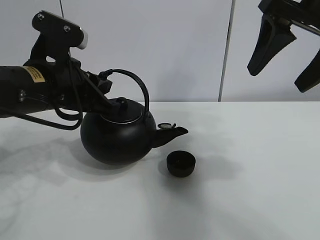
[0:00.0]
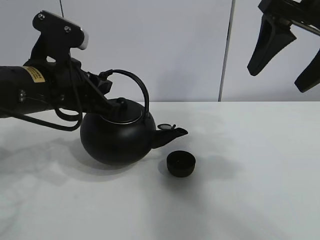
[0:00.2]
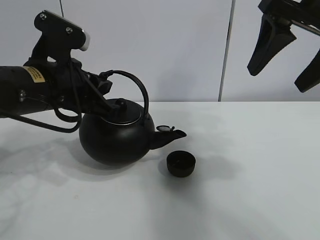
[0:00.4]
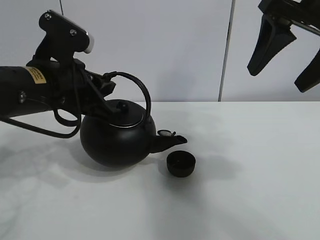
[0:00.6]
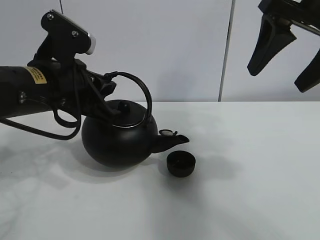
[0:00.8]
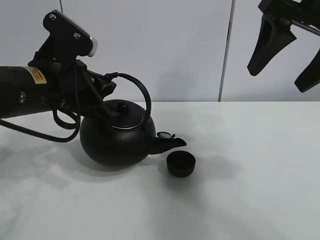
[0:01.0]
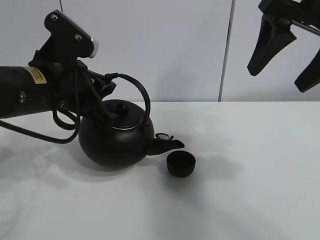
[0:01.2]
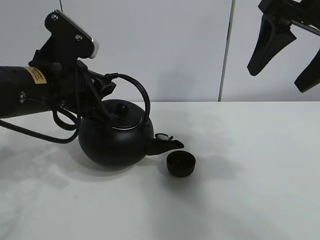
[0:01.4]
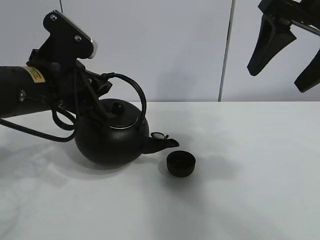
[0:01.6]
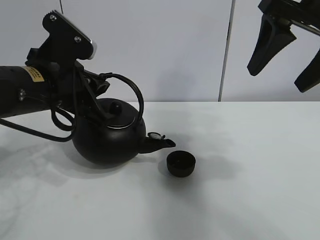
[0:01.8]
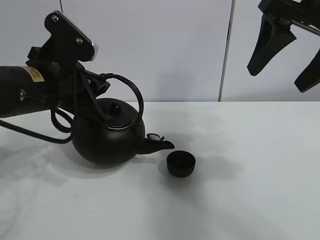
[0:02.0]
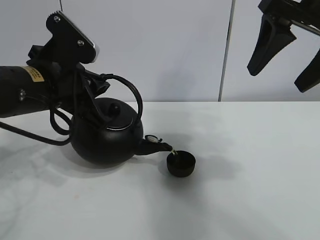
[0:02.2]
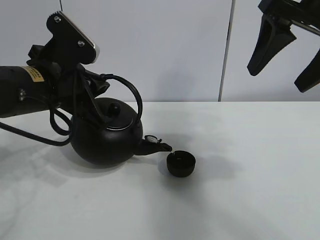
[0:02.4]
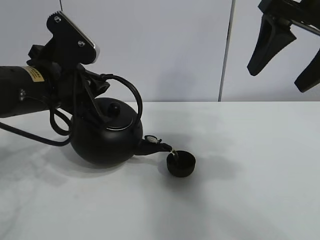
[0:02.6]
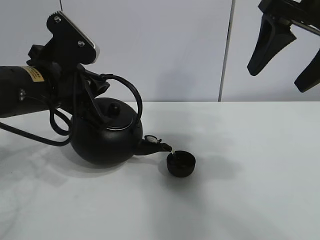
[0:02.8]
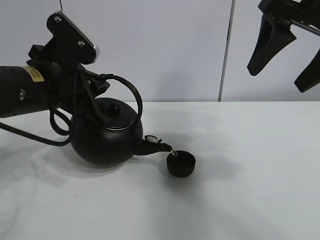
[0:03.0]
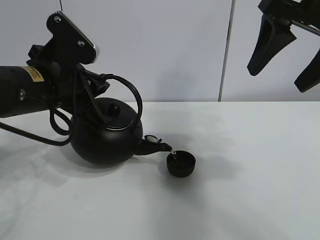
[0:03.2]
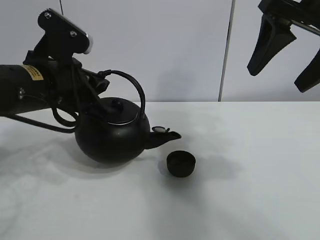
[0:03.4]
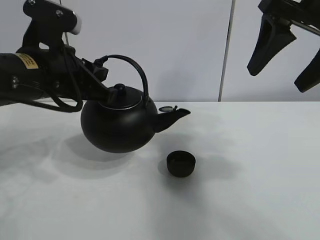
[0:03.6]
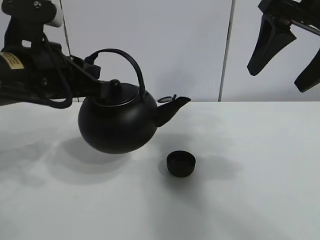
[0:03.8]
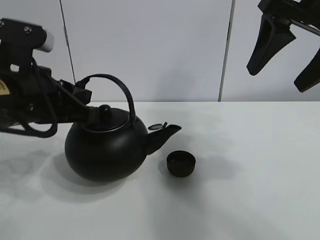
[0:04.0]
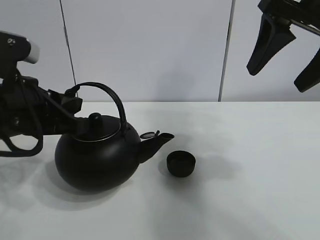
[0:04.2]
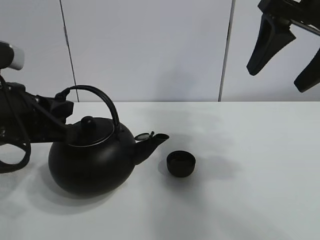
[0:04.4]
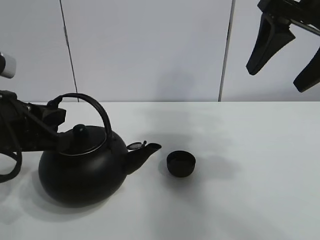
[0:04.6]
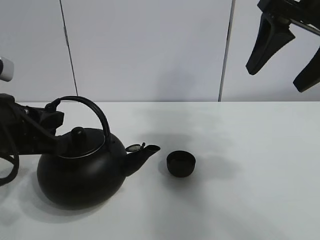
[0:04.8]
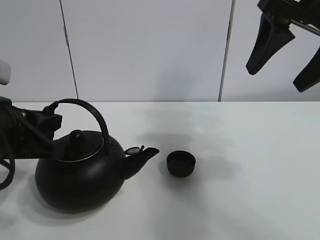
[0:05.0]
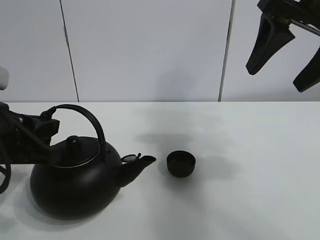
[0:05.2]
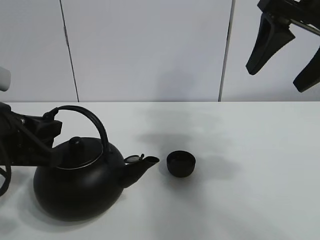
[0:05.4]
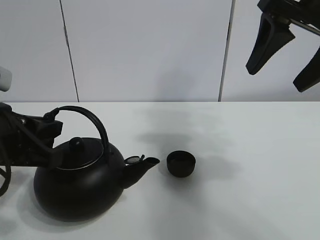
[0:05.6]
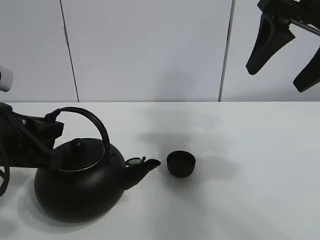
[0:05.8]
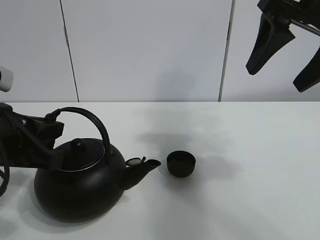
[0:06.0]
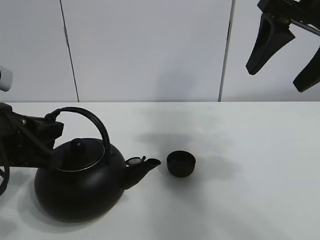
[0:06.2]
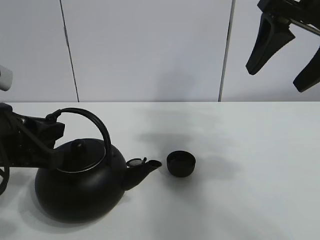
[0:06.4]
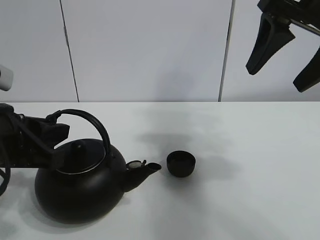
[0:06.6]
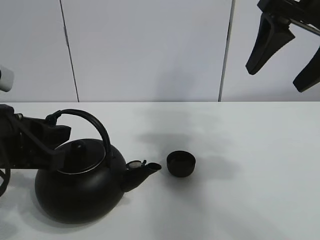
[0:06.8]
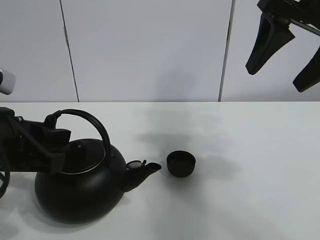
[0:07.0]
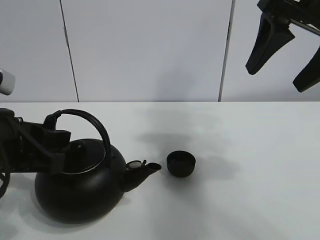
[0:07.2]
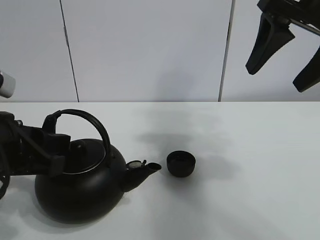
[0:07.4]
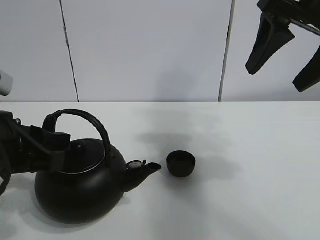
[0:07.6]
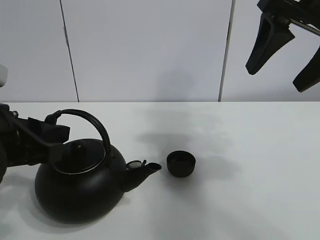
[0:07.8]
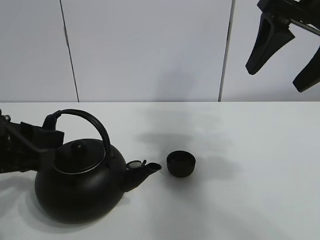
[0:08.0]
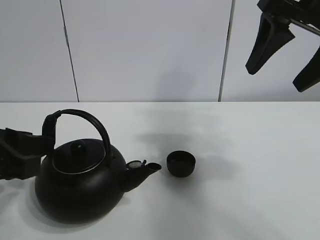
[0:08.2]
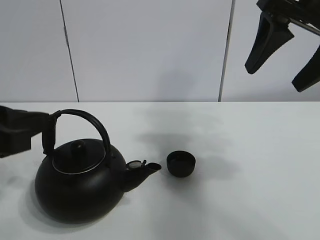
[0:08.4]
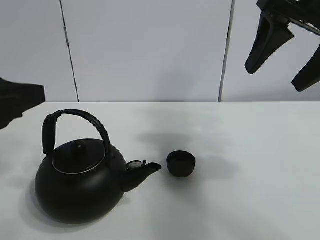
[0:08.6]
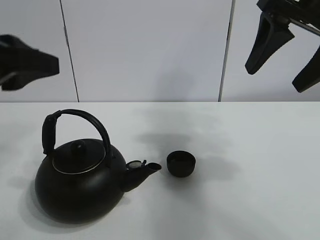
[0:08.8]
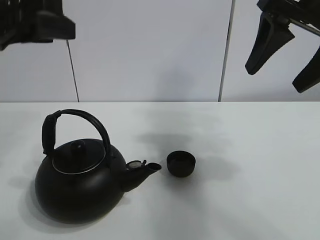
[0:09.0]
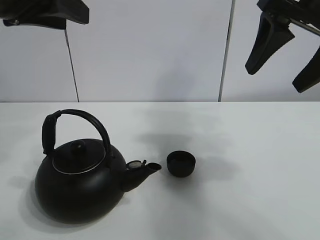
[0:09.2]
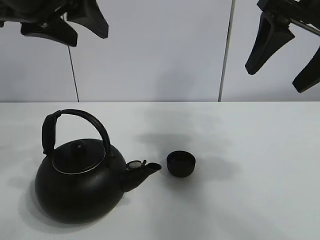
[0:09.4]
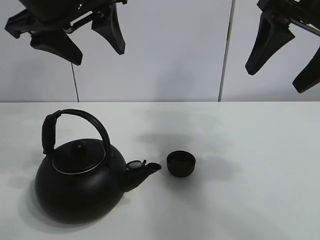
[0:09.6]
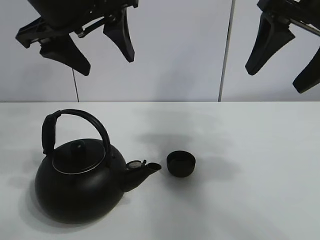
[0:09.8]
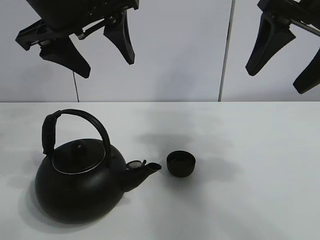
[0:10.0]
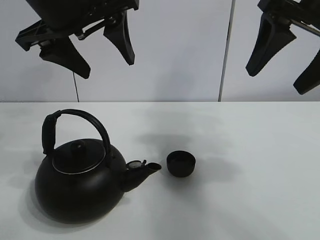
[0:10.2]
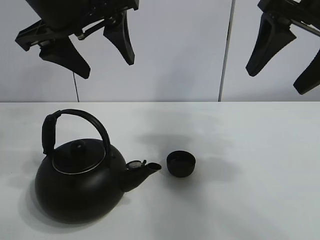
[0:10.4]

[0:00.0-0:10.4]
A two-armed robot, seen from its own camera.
Task of the whole recording: pour tea into the teacup.
Step, 0:00.0 to 0:03.2: Pour tea into the teacup with the left gripper.
0:00.0 to 0:03.0: The grippers move only a little.
0:03.0 to 0:04.4: The left gripper shifts approximately 5 cm backward.
0:04.4 to 0:06.0: The grippers move only a little.
0:06.0 to 0:07.4: The left gripper opens its fingers.
0:07.4 to 0:09.0: The left gripper goes about 15 cm upward.
0:09.0 to 0:10.4: The left gripper goes approximately 10 cm forward and to the right, and opens.

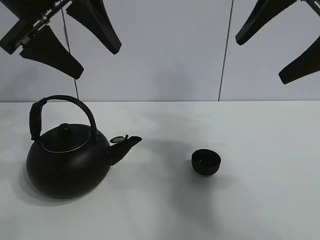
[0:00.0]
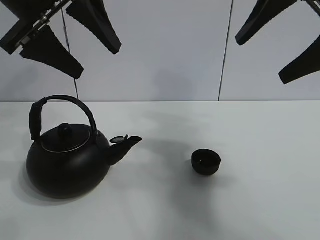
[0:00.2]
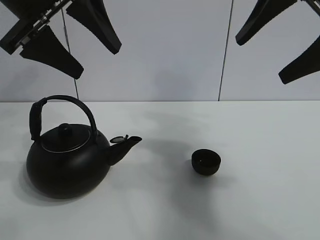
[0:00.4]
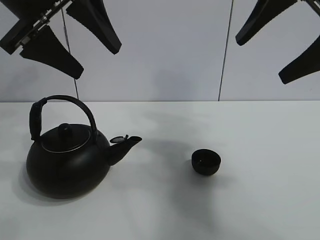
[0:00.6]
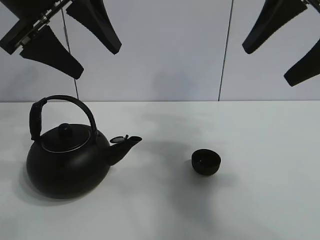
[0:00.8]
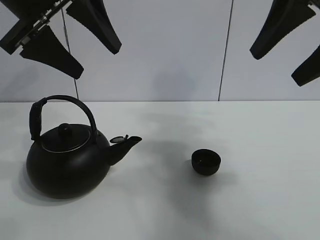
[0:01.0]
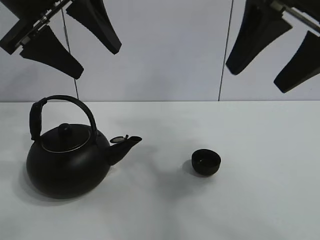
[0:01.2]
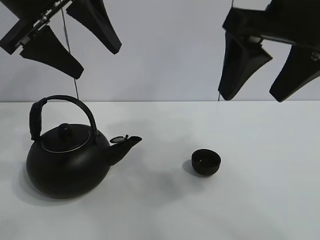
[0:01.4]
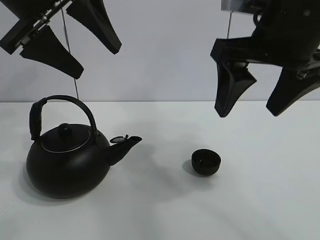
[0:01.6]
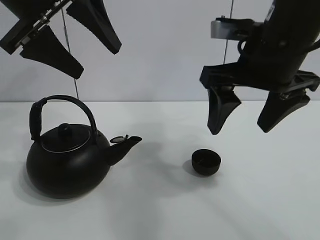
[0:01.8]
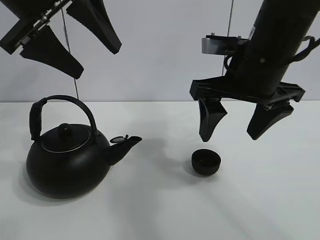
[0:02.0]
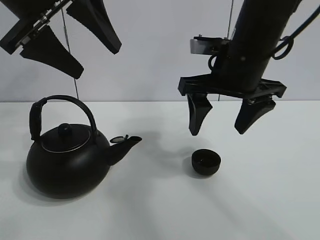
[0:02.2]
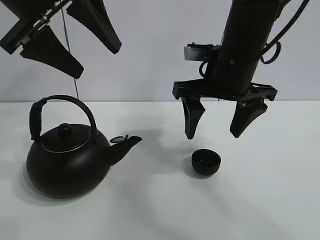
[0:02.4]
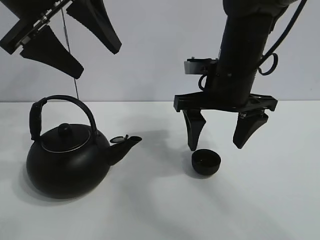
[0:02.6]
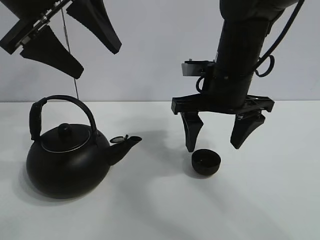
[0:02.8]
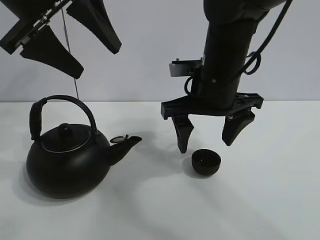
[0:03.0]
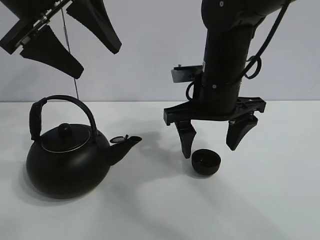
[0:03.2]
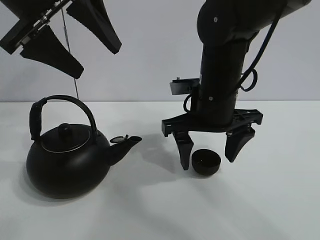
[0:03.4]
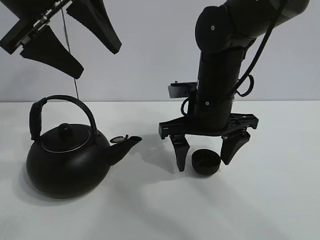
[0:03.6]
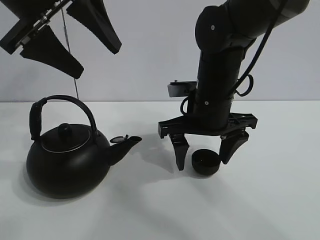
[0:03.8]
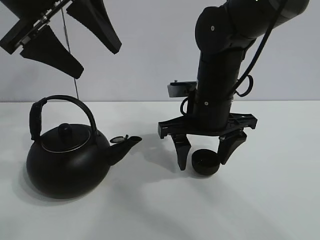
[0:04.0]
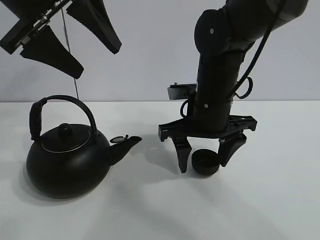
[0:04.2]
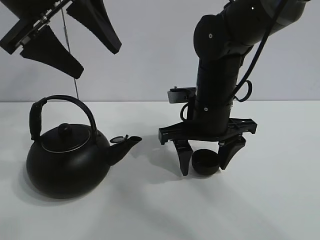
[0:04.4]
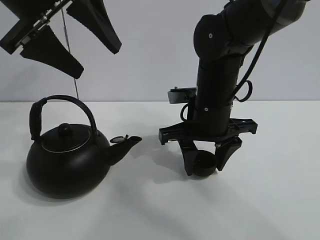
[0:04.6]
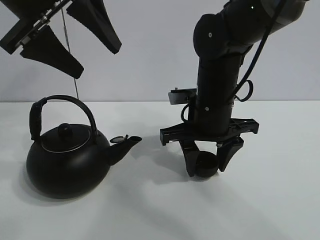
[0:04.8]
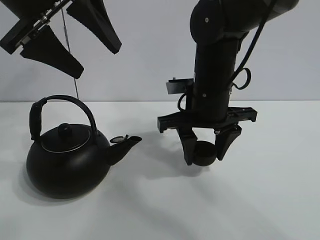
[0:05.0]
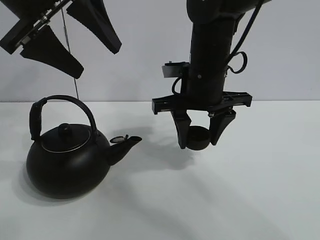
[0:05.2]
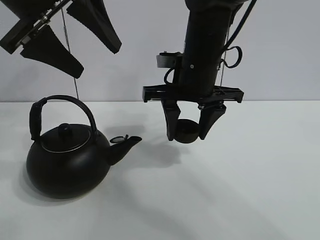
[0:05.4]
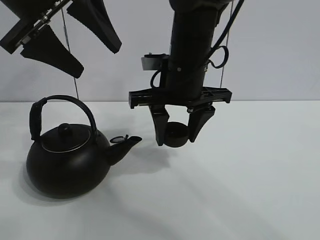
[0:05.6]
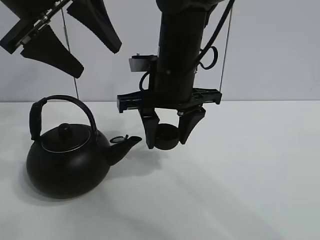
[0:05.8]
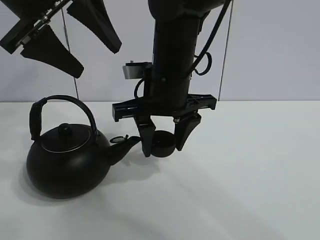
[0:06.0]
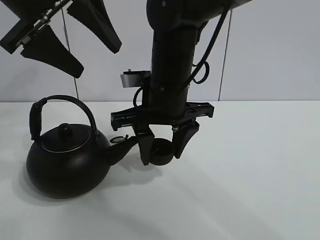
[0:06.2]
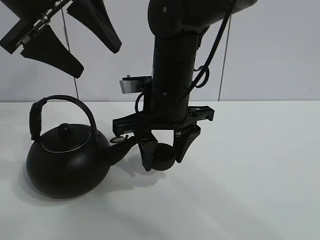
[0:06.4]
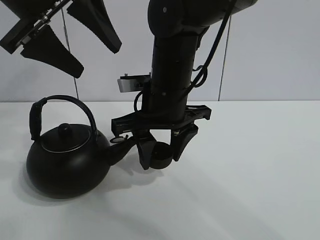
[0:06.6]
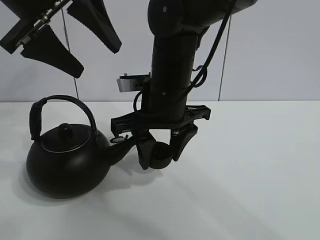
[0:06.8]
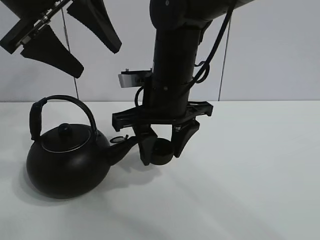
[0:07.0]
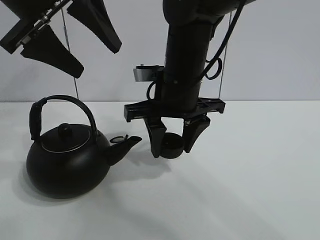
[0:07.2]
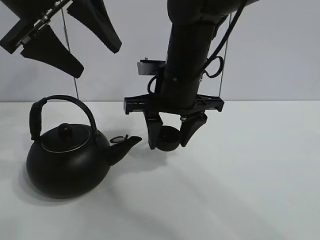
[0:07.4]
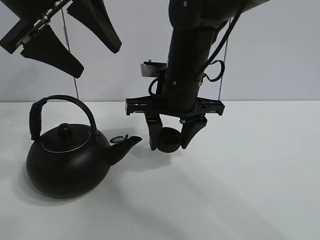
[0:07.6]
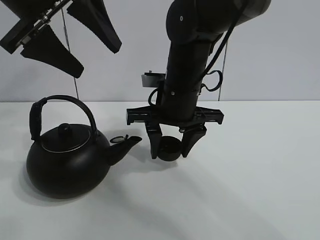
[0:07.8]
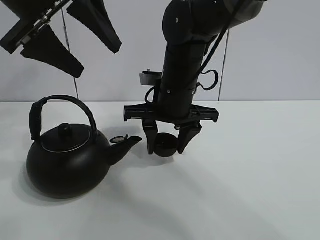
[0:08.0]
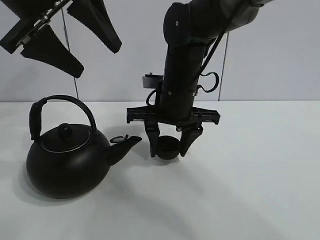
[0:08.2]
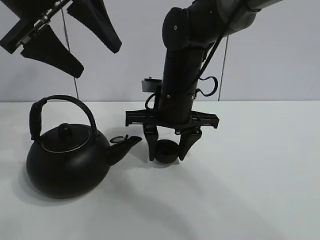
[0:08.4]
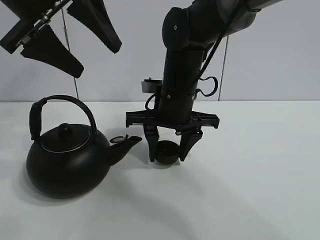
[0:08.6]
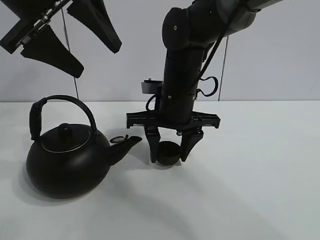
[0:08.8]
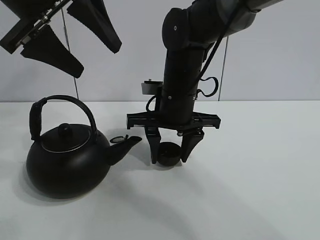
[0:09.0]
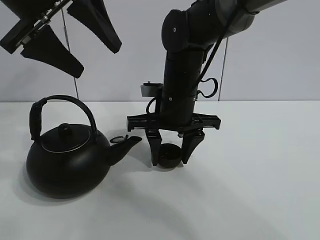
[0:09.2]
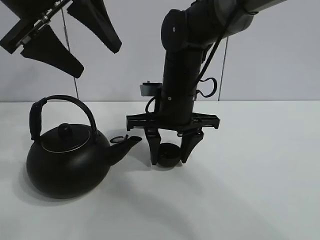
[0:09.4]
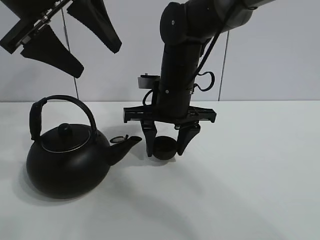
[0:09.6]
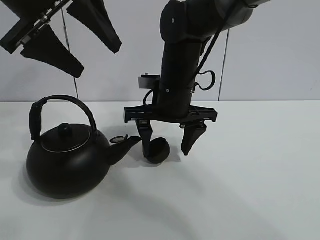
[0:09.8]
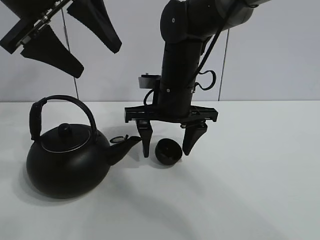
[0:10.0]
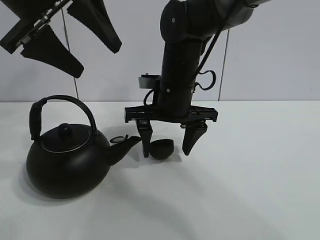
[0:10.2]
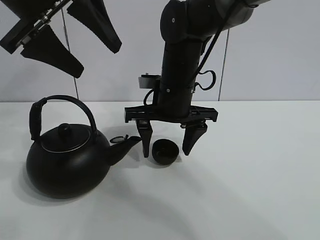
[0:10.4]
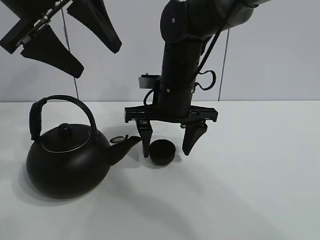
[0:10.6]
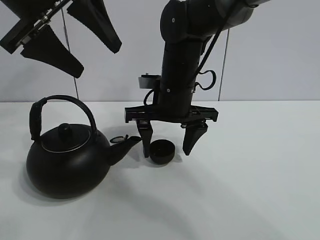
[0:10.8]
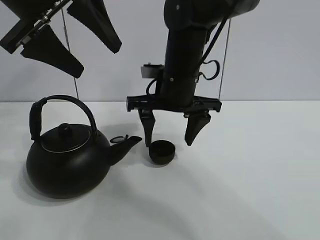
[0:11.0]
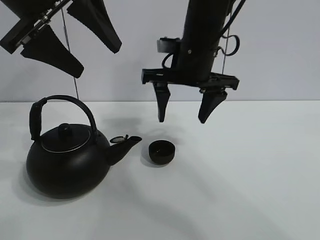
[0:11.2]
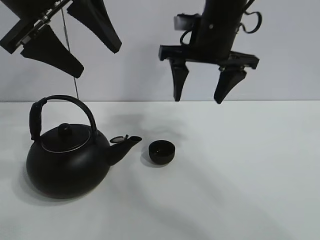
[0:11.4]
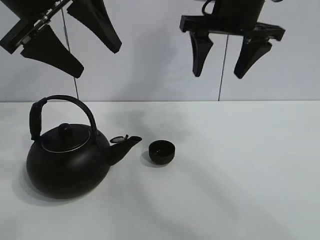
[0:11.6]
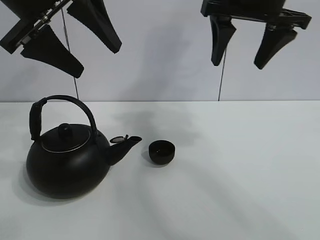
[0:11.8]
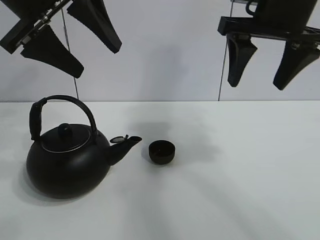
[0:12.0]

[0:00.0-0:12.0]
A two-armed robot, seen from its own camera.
Task of the whole recording: pour tea into the teacup.
Step, 0:00.0 to 0:04.8: Pick up the teacup with the right gripper.
Step, 0:05.2 to 0:10.8: Place the teacup in the center of view with the right gripper.
0:01.6 to 0:03.0: The right gripper shifts roughly 15 cm downward, forward and to the left.
0:03.0 to 0:04.4: The right gripper closes.
0:04.4 to 0:06.0: The right gripper heads to the left and upward, covering about 10 cm, and closes its fingers.
0:06.0 to 0:07.6: The grippers stay close to where they were, moving slightly.
0:07.6 to 0:09.0: The grippers stay close to where they were, moving slightly.
0:09.0 to 0:10.4: The right gripper opens up.
0:10.4 to 0:12.0: The right gripper heads upward and to the right, covering some 20 cm.
